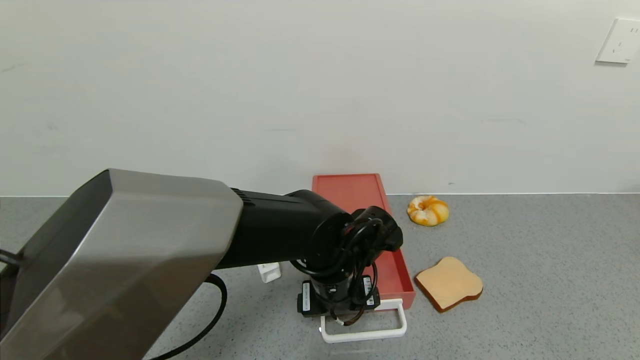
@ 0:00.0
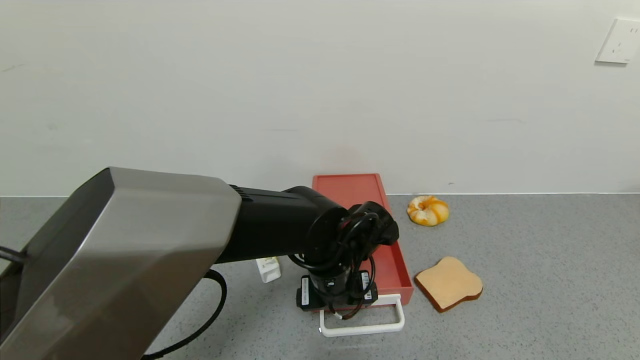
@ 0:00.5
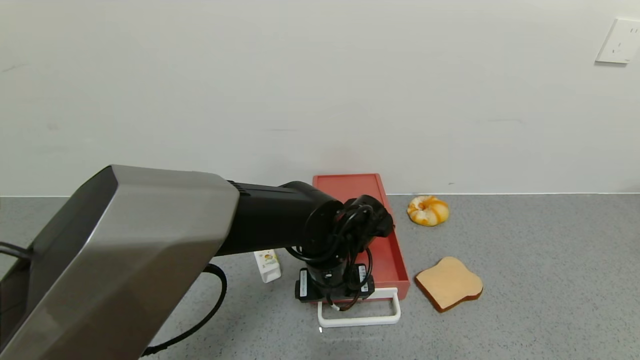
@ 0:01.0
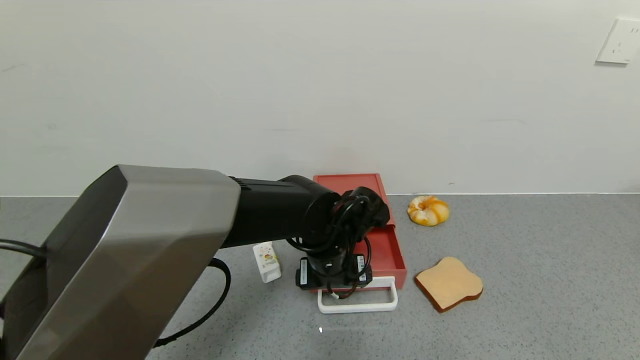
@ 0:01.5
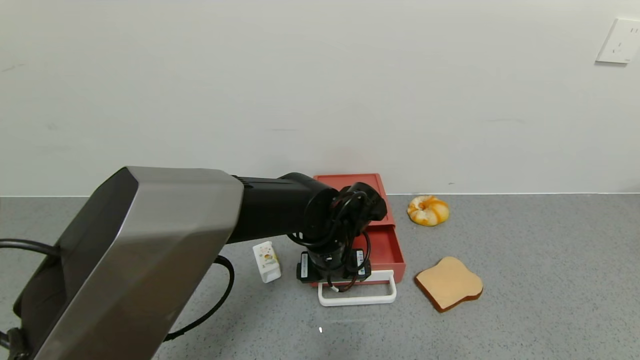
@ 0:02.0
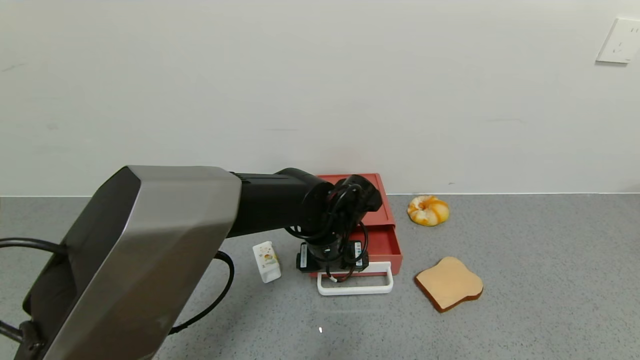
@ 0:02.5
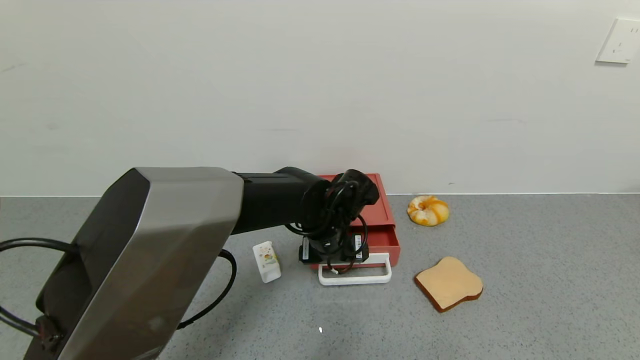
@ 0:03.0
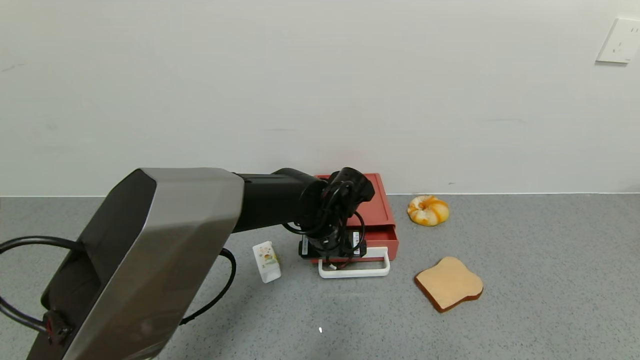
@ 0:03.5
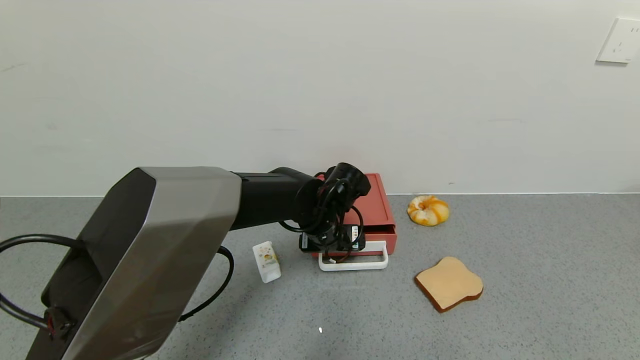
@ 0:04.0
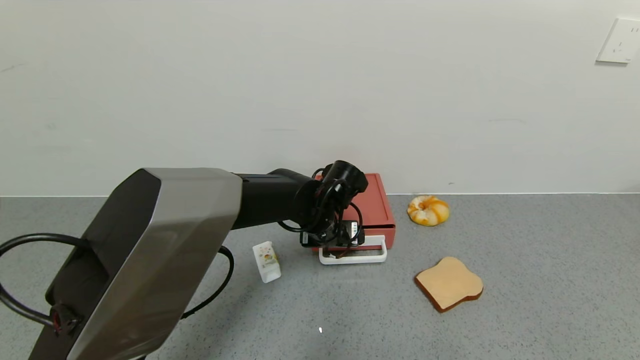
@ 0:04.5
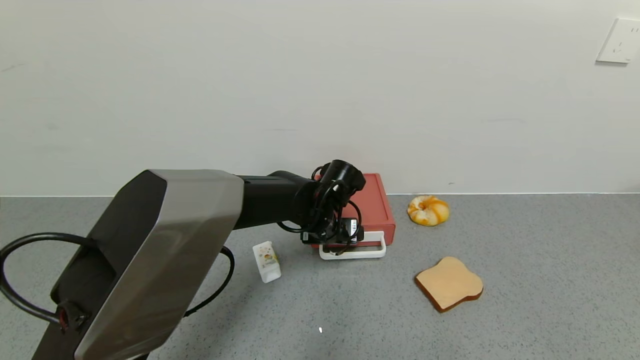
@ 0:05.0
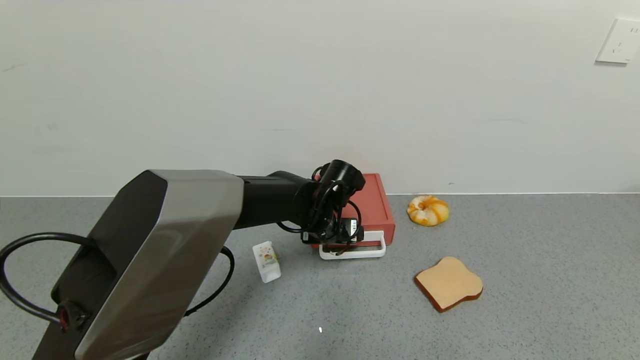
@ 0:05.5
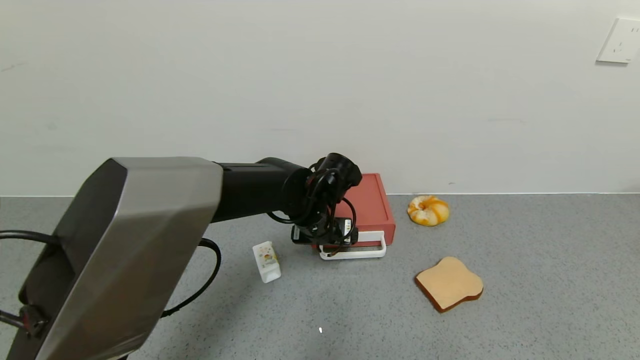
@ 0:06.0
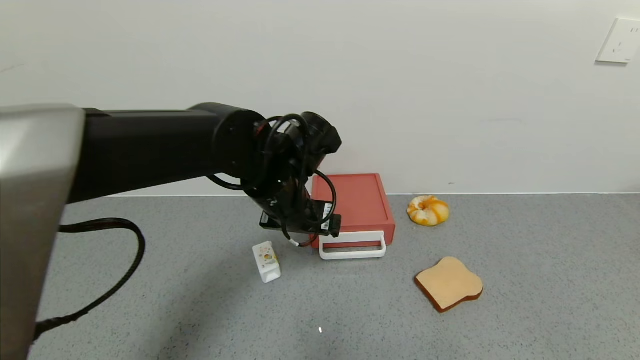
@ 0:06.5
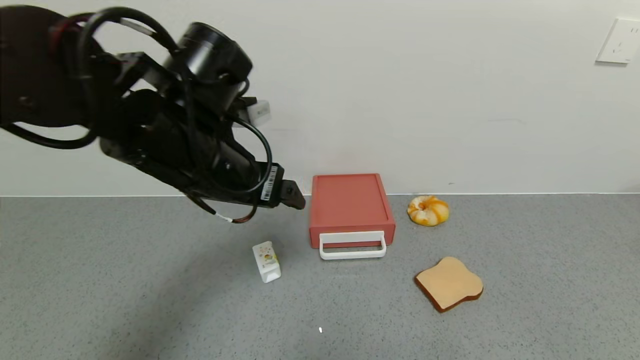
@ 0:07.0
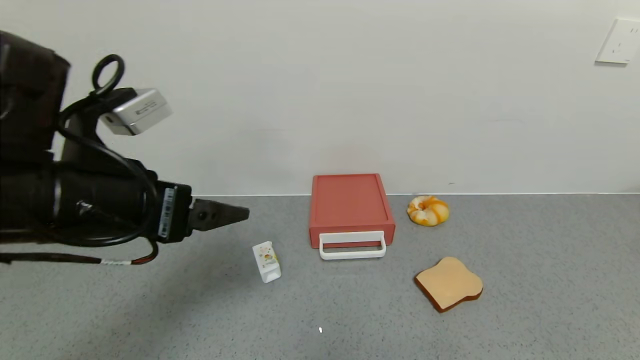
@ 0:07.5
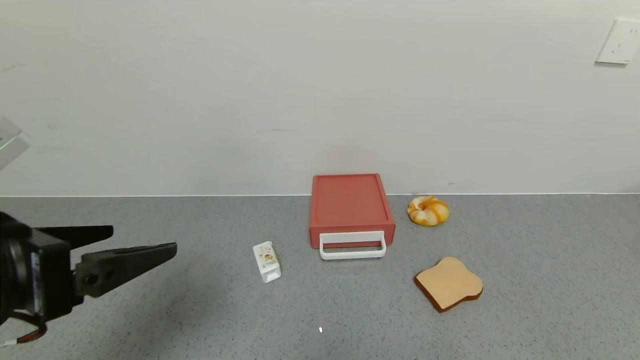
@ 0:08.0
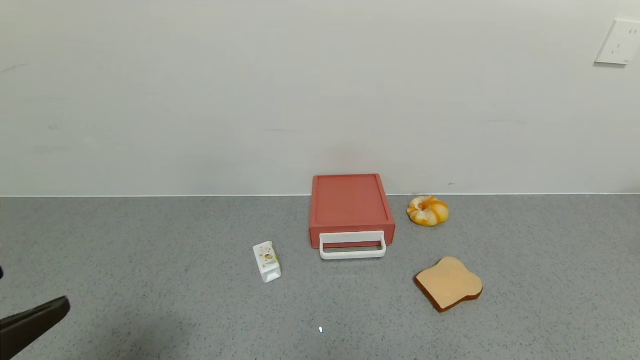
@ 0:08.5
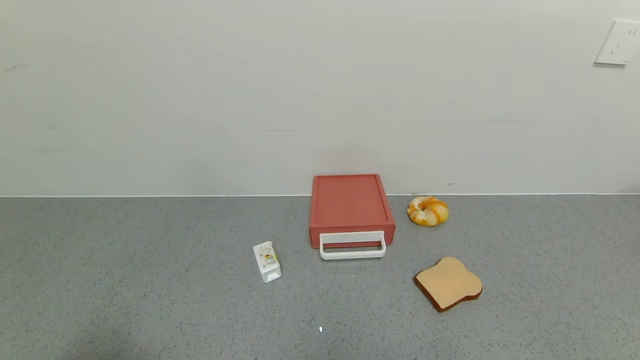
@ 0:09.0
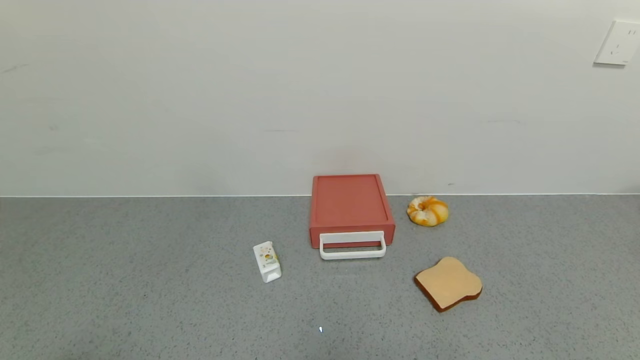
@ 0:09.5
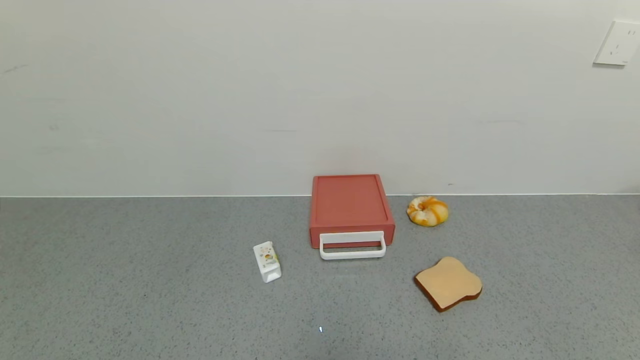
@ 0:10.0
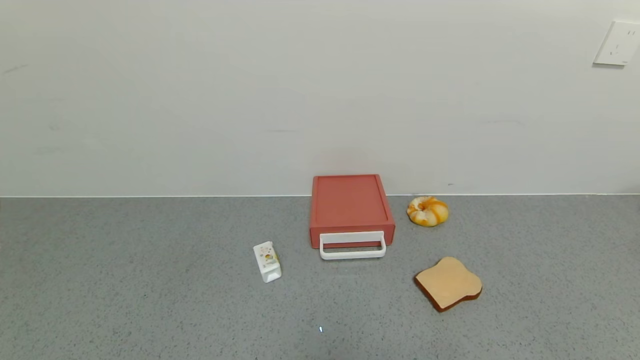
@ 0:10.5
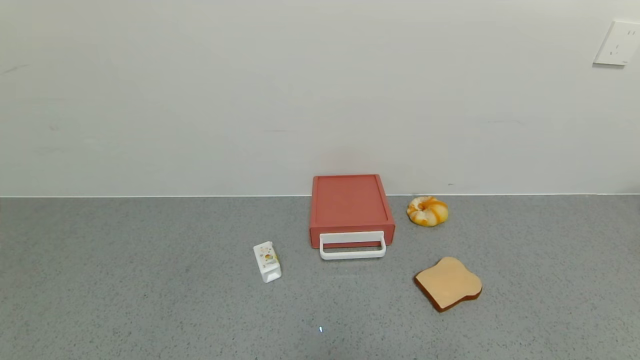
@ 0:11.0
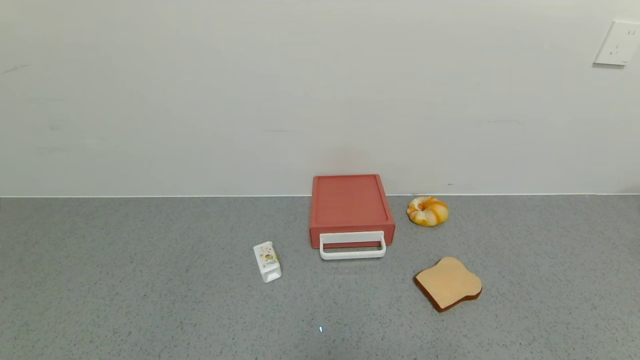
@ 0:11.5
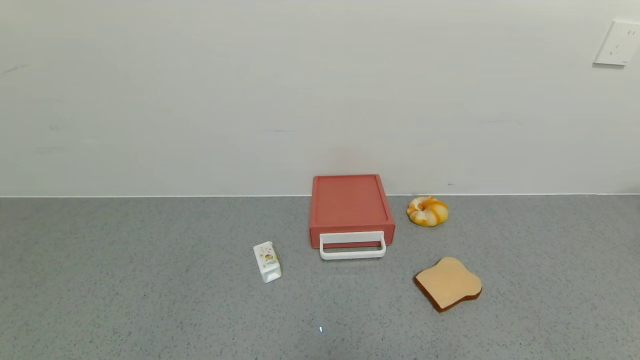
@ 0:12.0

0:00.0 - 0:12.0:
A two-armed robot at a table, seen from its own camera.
Task of the whole recording: use the gripper to open the drawer and close the red drawer.
Step, 0:00.0 - 0:06.0: Close the red drawer with the left gripper.
0:00.0 - 0:02.0: The grippers move only a little.
0:02.0 - 0:04.0: The grippers make only small movements.
0:04.0 - 0:06.0: The grippers move only a little.
0:06.0 - 0:08.0: The left gripper heads backward, to the left and upward, covering some 35 cm.
0:08.0 - 0:10.0: The left gripper is displaced backward by roughly 20 cm.
